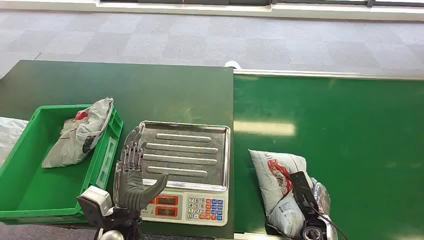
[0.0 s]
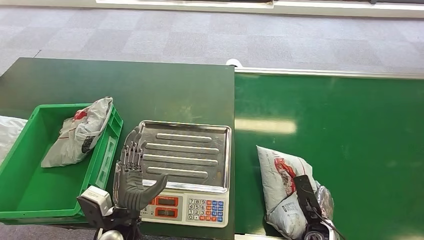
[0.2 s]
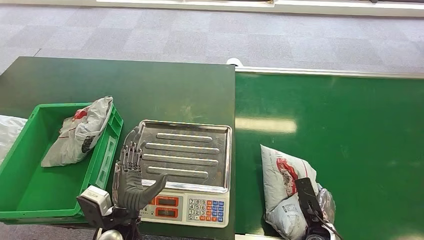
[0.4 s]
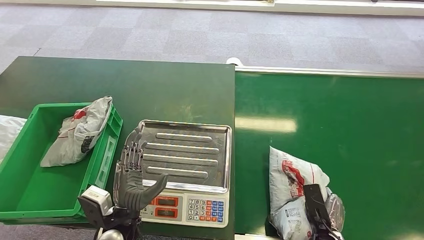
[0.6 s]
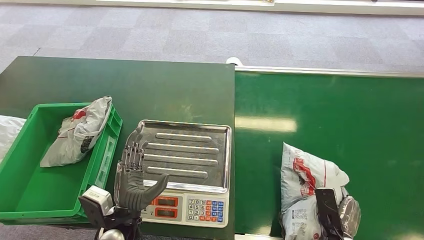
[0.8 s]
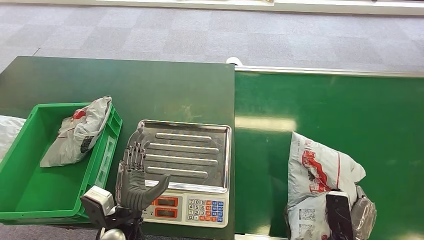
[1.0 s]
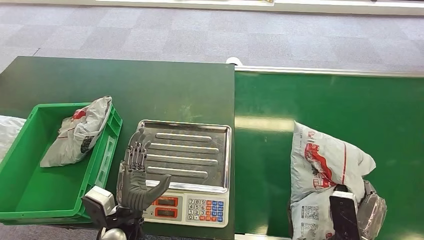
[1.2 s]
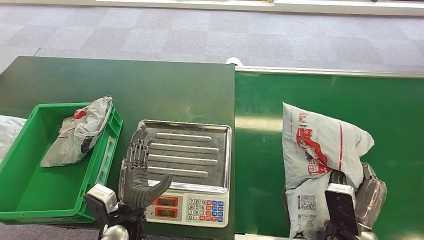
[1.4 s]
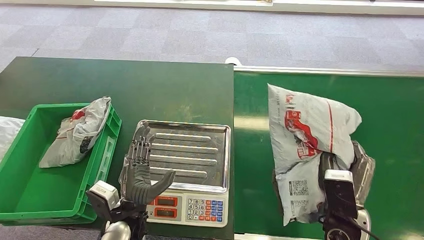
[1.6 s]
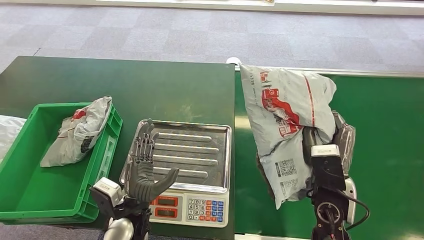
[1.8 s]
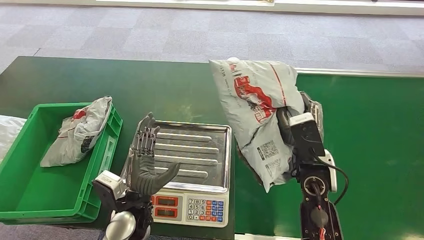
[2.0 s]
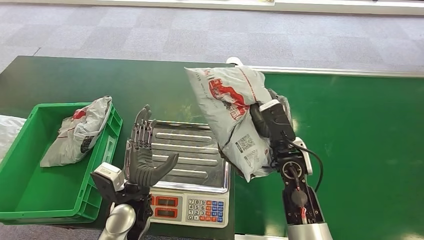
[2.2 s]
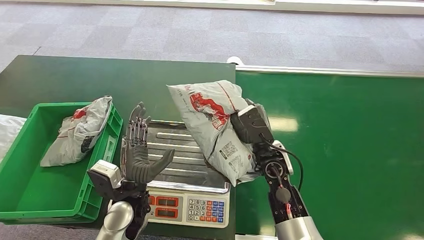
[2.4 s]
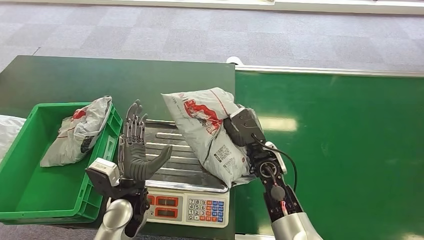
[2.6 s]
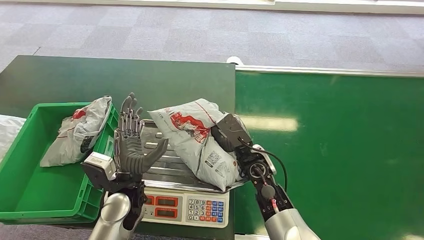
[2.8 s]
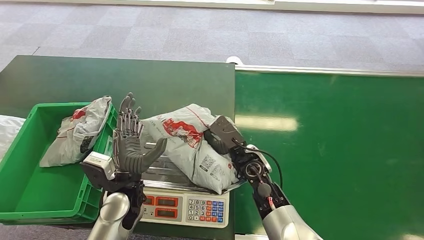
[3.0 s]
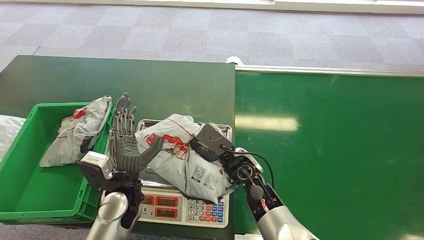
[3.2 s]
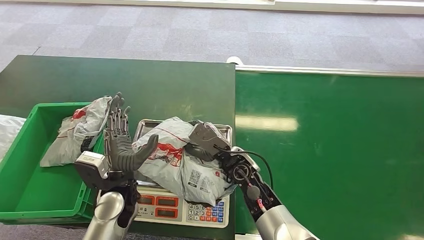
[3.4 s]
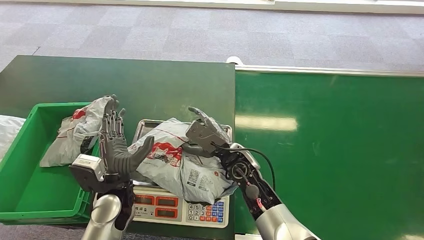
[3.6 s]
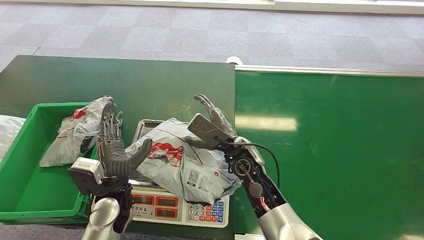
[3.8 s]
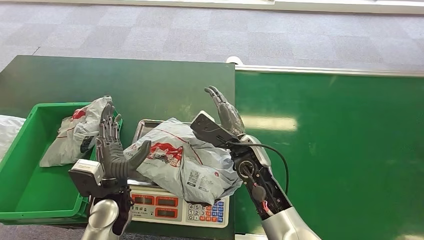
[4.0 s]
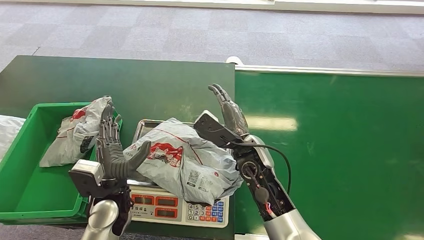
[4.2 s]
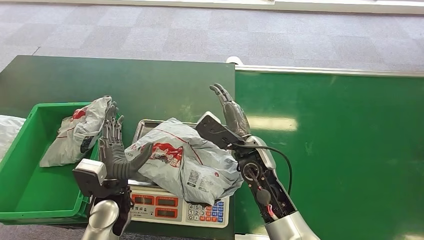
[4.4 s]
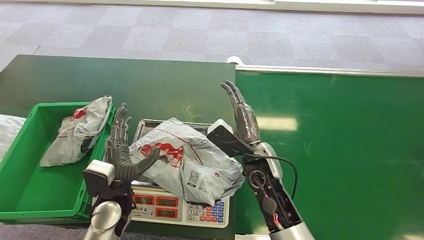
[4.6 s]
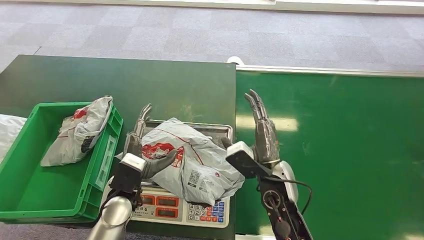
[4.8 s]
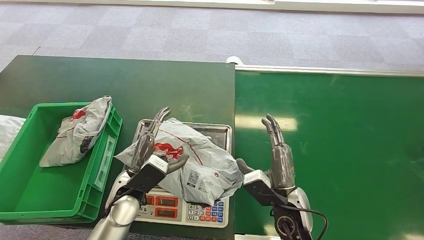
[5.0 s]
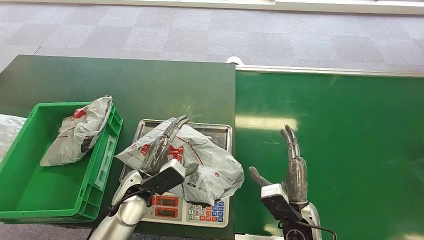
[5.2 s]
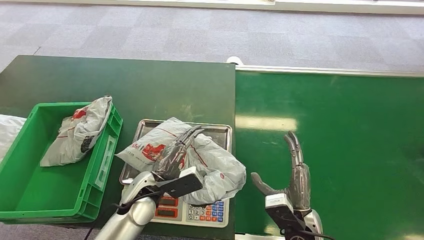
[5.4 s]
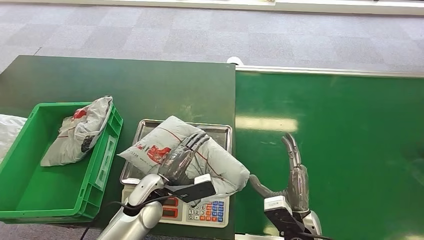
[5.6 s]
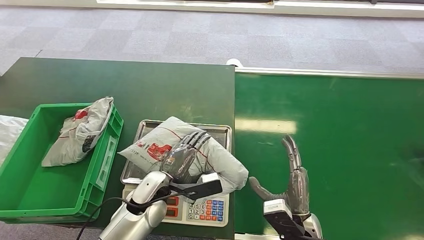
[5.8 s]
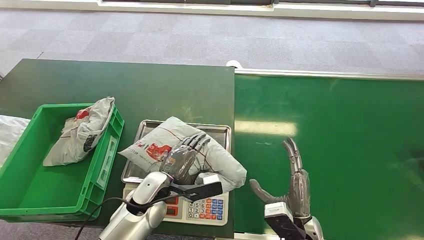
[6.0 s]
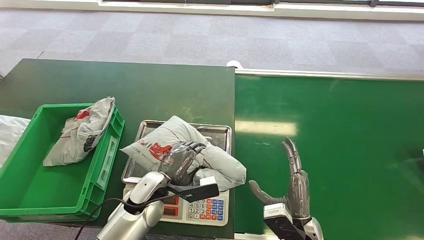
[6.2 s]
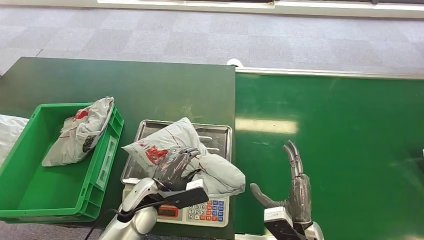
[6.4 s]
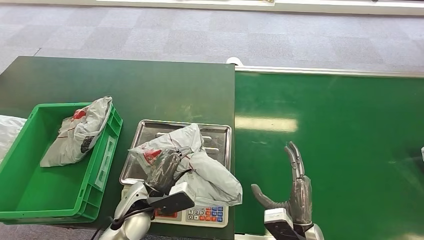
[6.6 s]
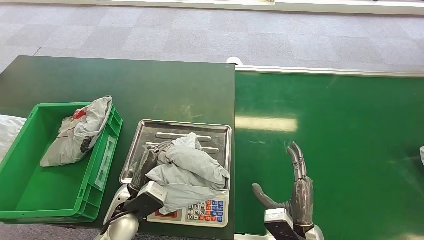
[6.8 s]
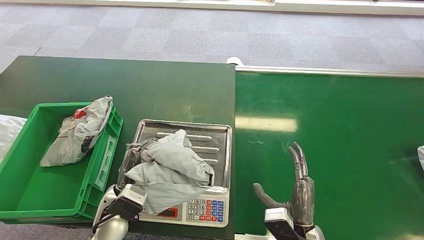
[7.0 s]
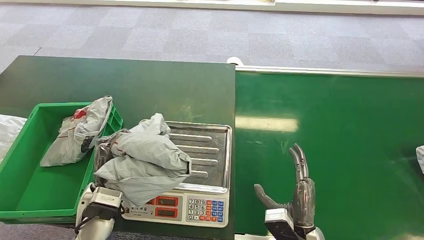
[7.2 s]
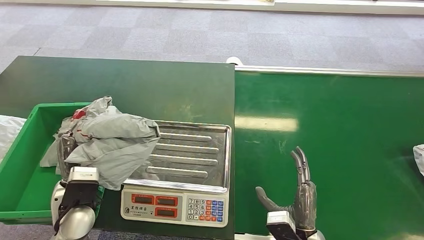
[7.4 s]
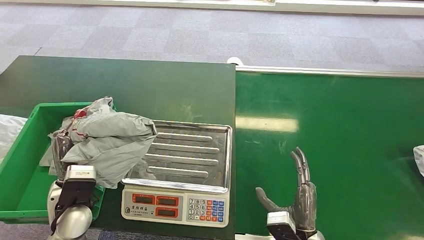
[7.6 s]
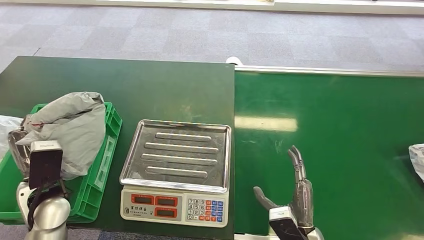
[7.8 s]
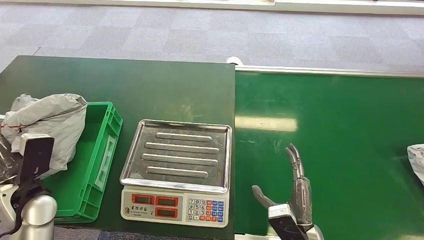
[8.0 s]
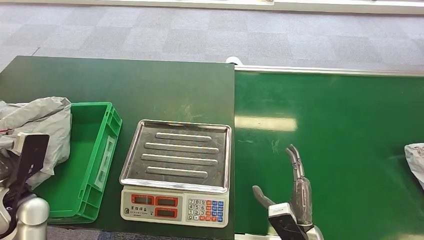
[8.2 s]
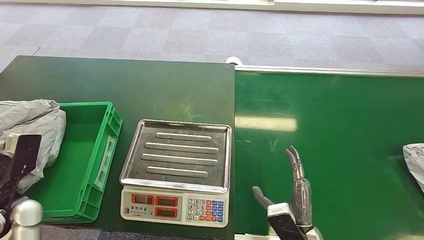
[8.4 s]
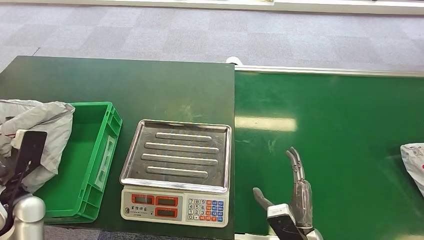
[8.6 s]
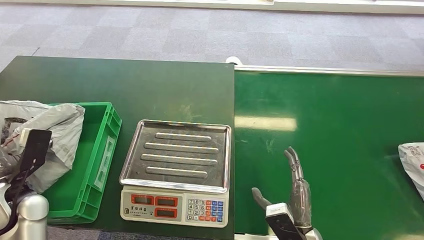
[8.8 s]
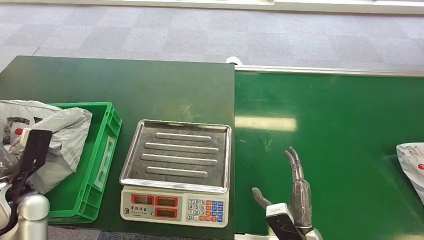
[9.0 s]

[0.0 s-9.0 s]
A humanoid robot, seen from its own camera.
Task of the whole recording: Weigh the package on the weighing device and place it in the left basket.
Step, 0.0 to 1.6 s: Pick up the package from the conveyor belt.
Step, 2.4 to 3.8 s: Place the package onto the inbound machine.
Step, 6.8 to 7.6 s: Pick up the package from the inbound machine.
Step, 8.0 to 9.0 s: Place the package into the parcel locker.
3.0 to 4.4 s: The right hand shifts about 5 cm upward.

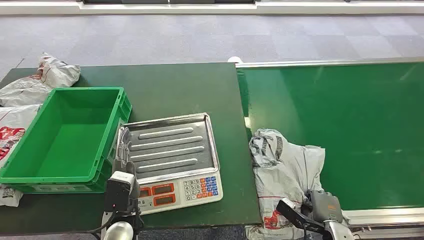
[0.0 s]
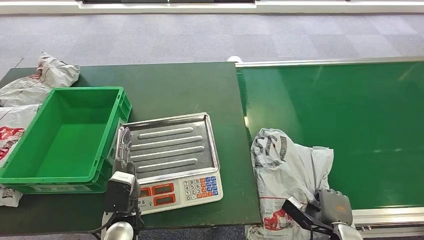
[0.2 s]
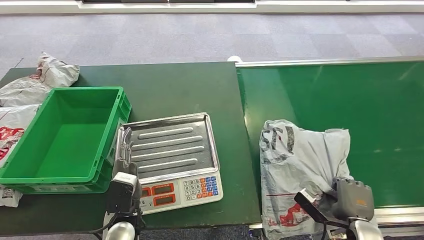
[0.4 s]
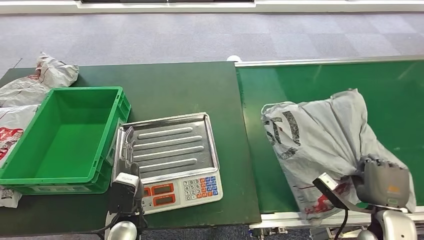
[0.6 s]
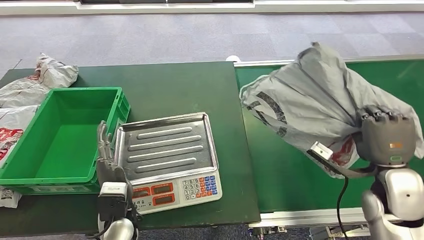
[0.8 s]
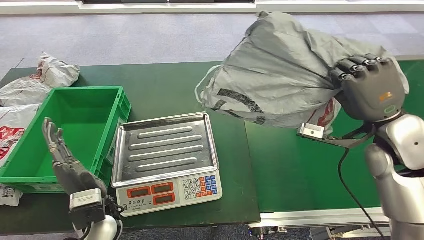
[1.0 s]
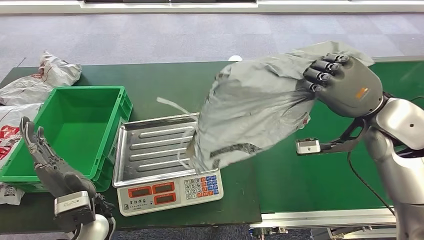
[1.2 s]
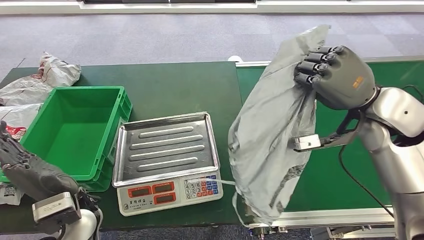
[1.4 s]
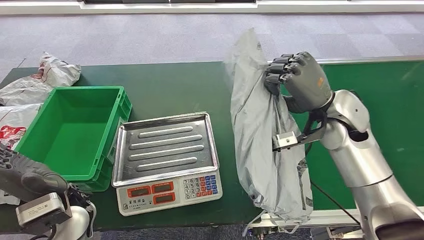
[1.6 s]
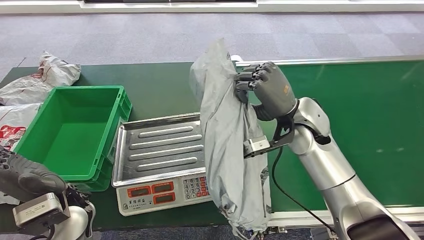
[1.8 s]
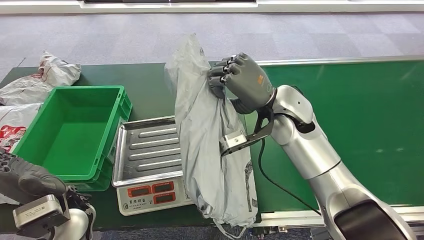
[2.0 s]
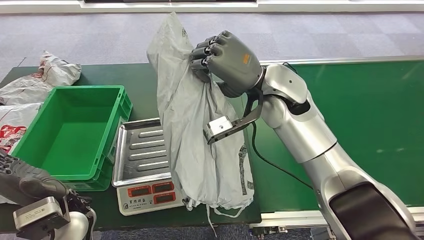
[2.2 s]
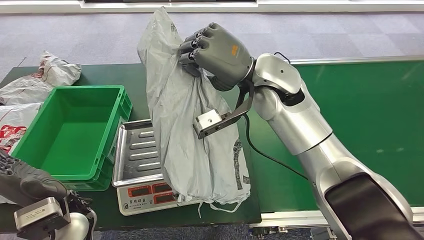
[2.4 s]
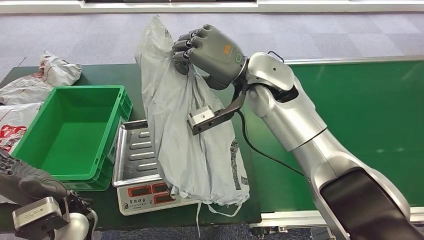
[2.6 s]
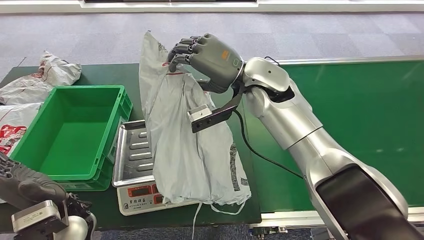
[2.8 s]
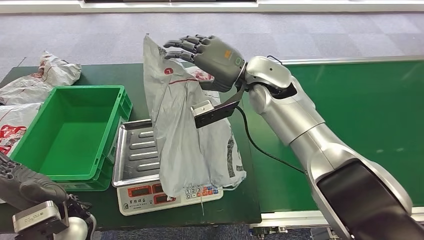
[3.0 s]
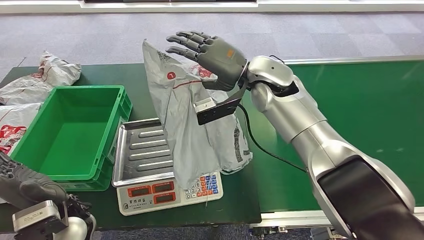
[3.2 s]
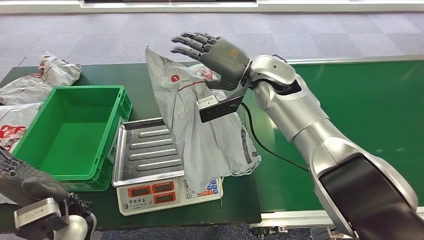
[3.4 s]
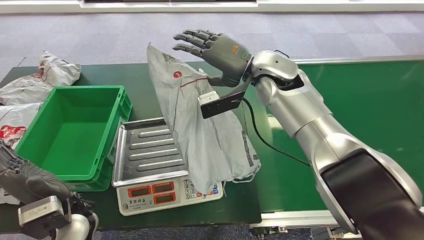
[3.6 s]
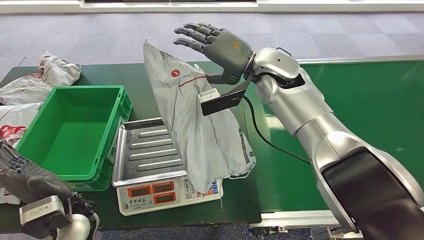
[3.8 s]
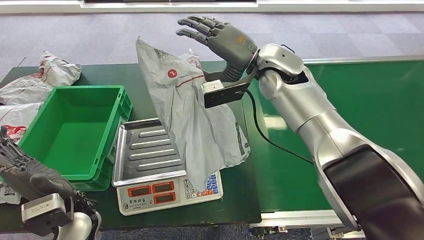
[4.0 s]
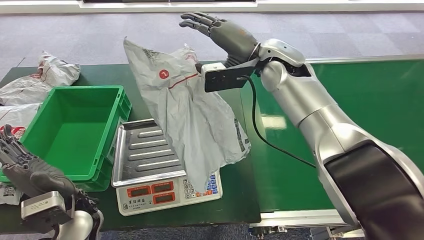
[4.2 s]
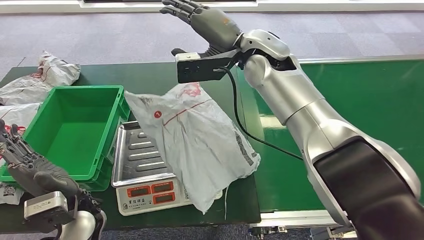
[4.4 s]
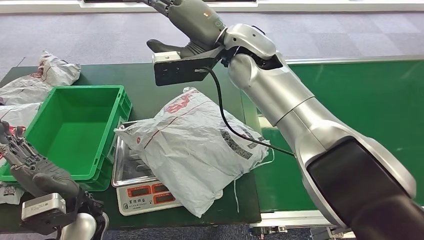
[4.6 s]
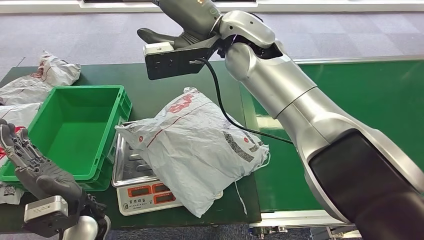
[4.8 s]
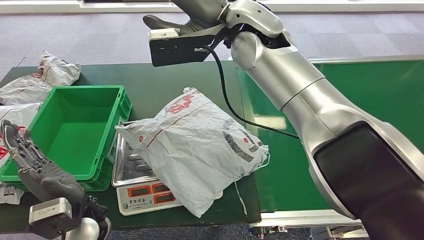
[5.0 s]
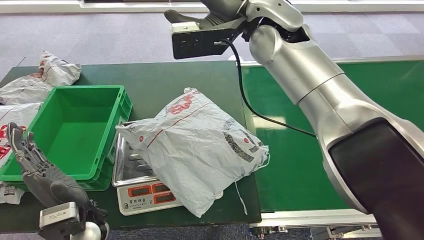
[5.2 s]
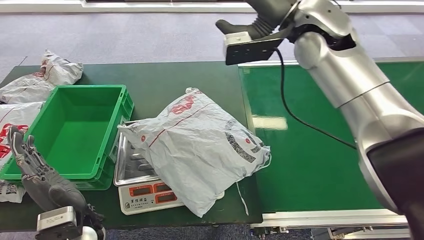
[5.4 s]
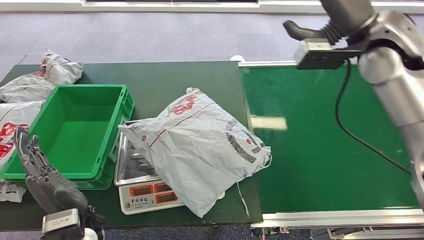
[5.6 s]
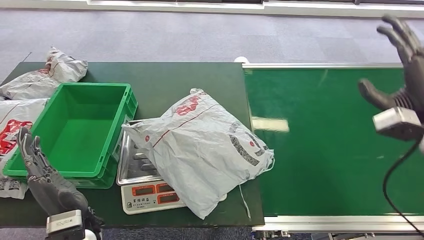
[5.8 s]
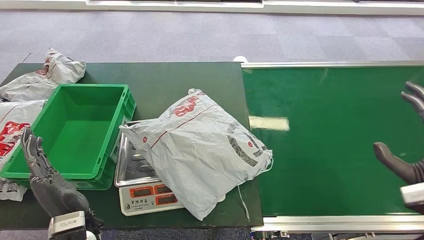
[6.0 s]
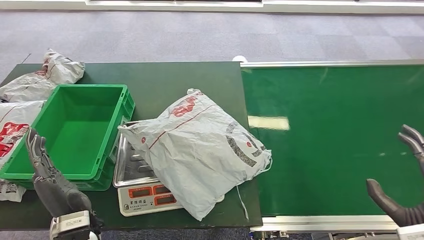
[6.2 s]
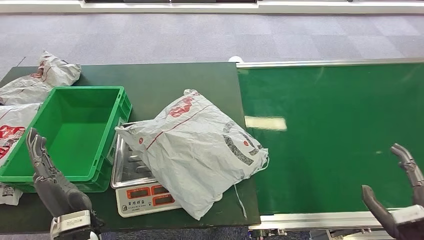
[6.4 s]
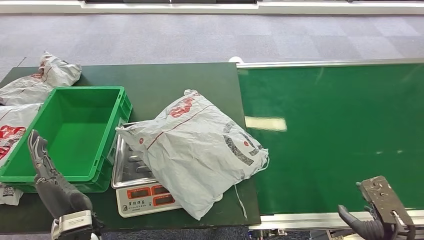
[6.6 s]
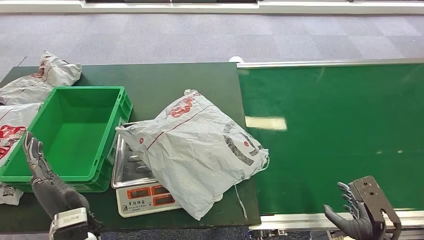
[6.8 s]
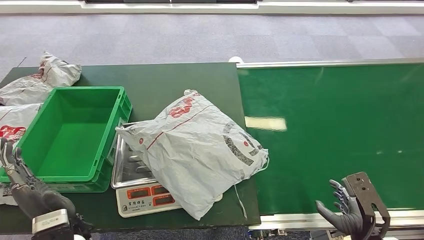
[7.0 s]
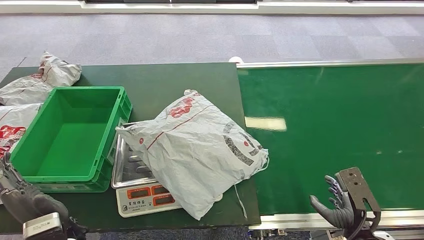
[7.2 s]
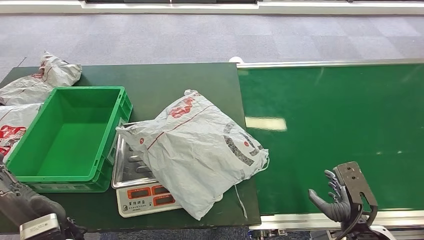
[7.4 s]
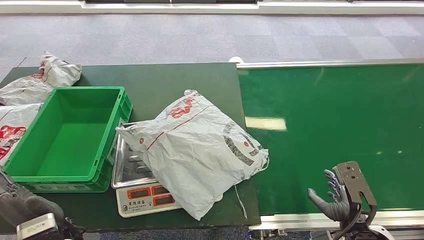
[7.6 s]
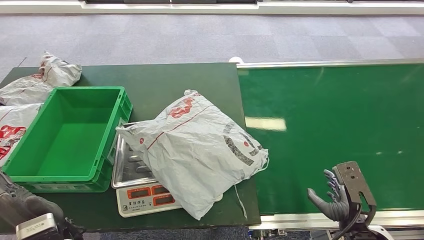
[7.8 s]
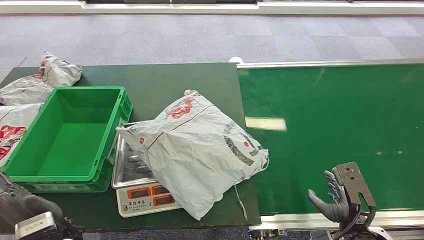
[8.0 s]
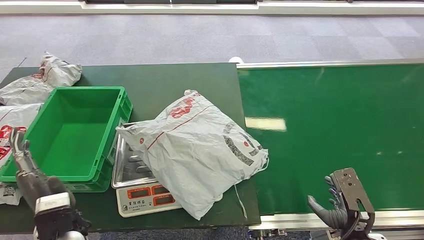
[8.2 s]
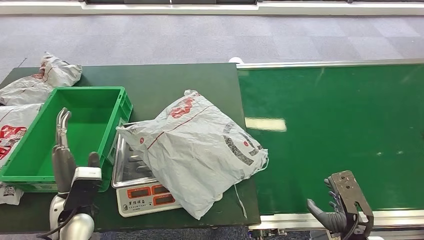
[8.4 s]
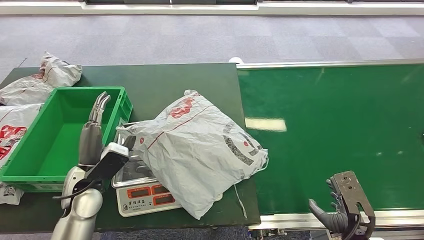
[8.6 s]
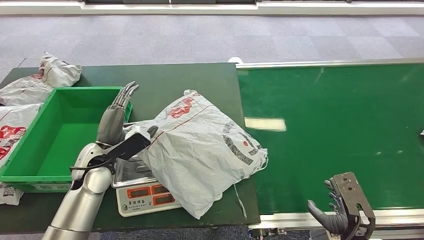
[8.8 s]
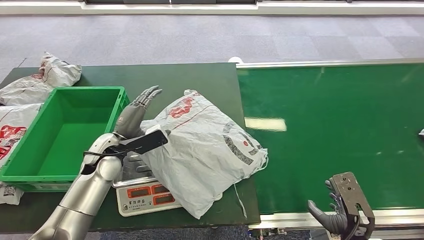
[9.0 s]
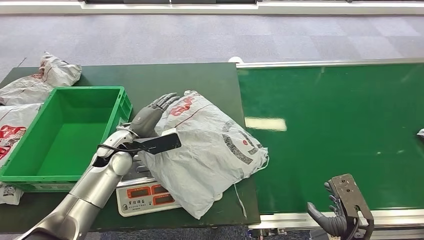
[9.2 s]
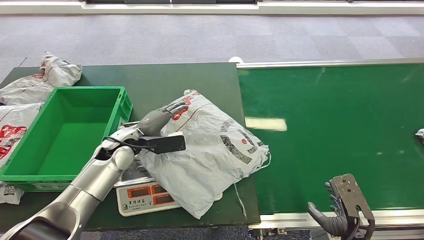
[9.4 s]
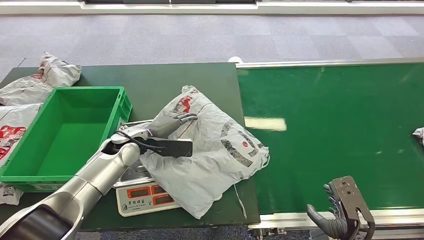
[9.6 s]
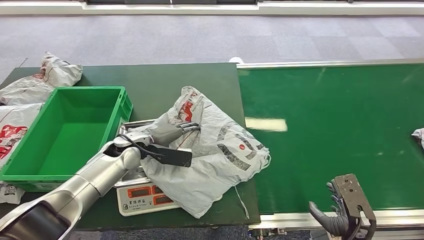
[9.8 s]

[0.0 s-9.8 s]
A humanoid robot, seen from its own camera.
Task of the whole recording: Weigh the package on the weighing device and place it in the left basket.
Step, 0.0 to 1.6 s: Pick up the package from the conveyor belt.
Step, 1.8 to 6.2 s: Place the package onto the inbound machine.
7.0 to 8.4 s: There are only small adjustments of the hands.
8.4 to 9.8 s: The left hand goes some 20 cm forward.
